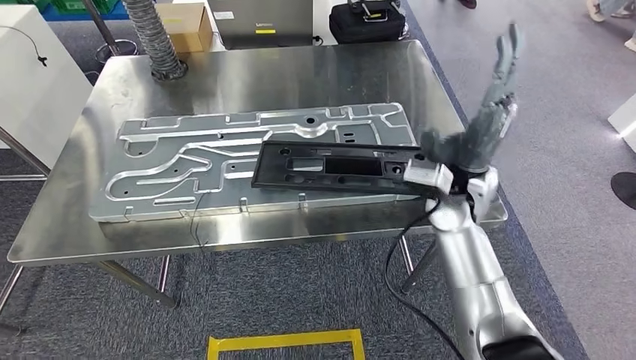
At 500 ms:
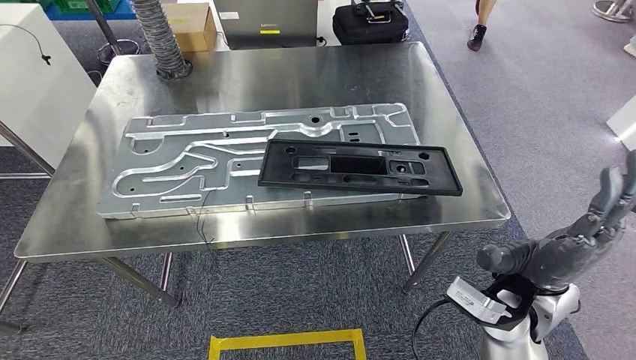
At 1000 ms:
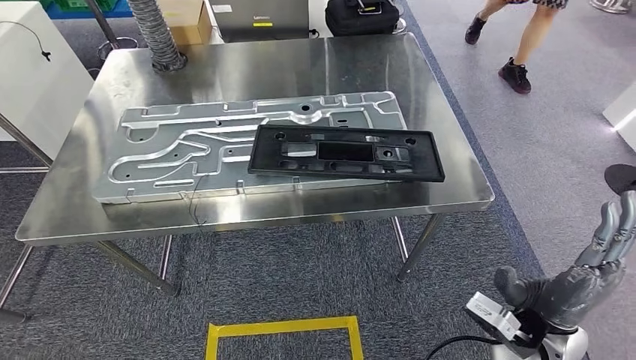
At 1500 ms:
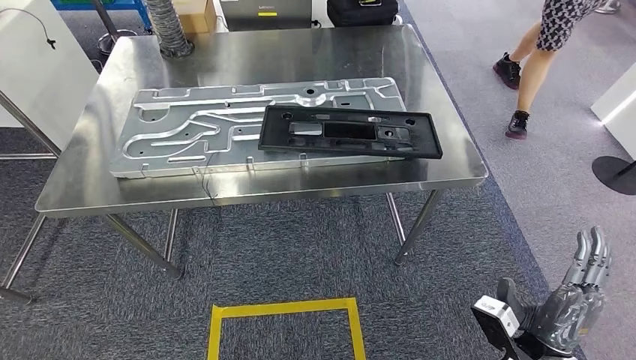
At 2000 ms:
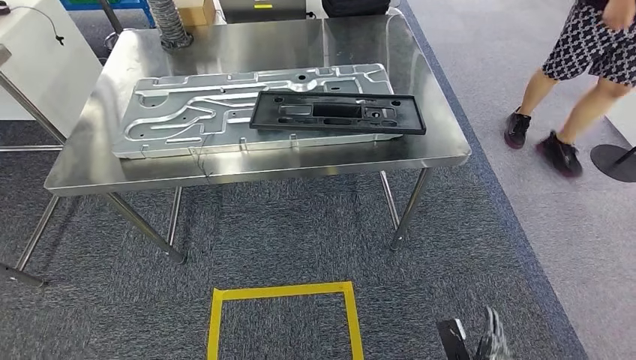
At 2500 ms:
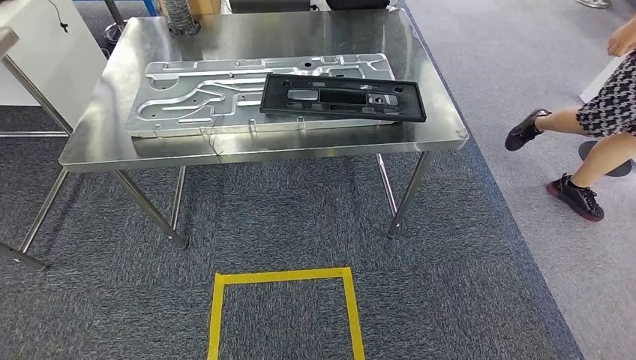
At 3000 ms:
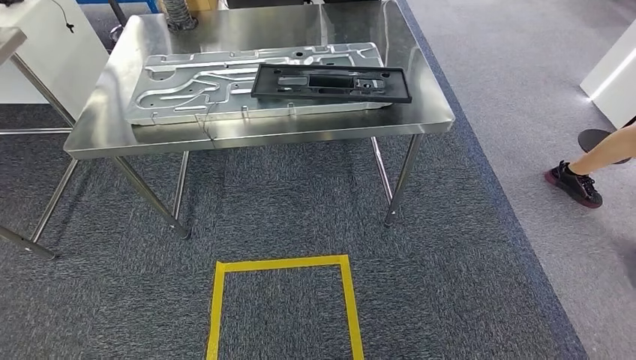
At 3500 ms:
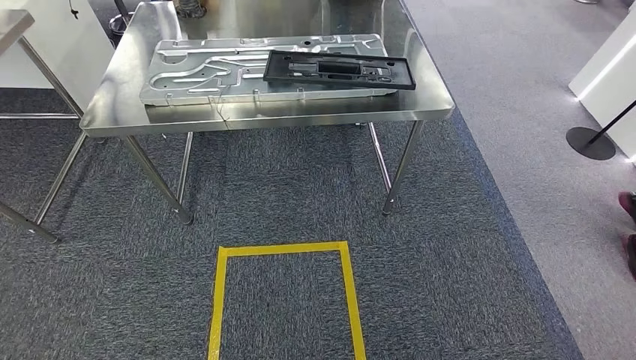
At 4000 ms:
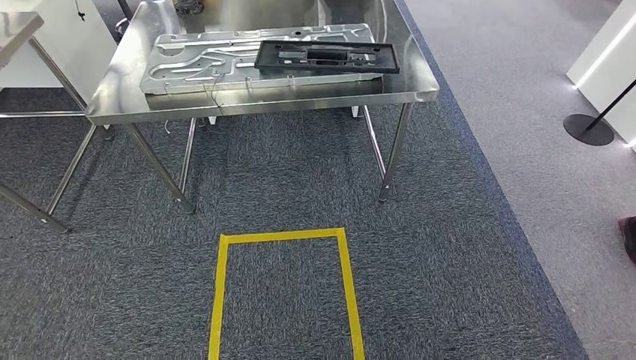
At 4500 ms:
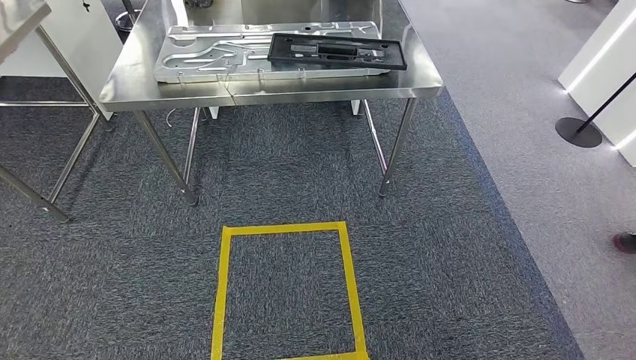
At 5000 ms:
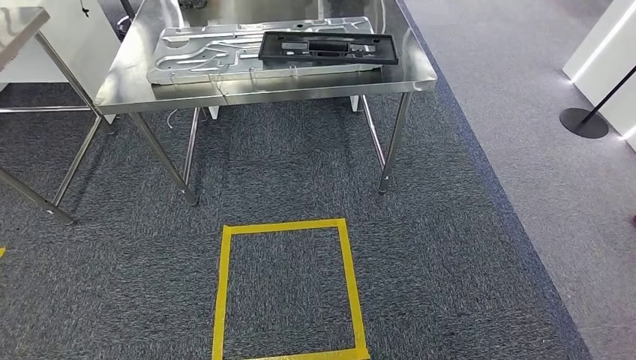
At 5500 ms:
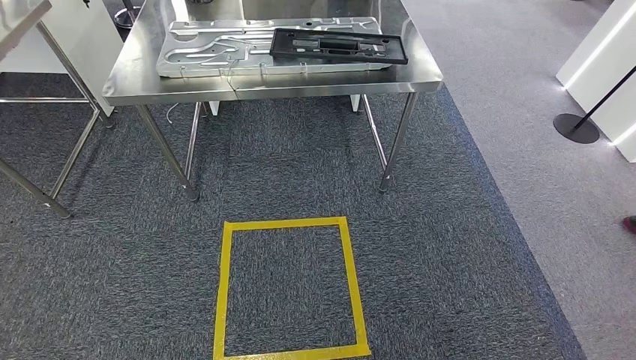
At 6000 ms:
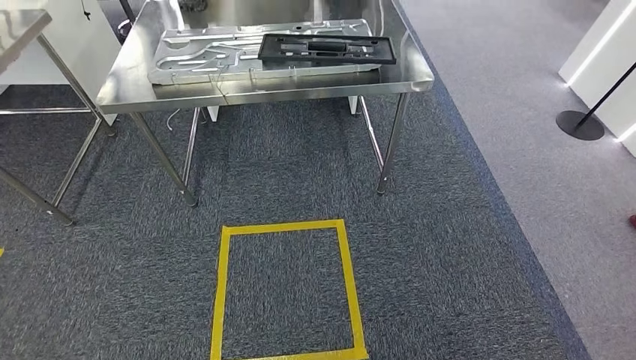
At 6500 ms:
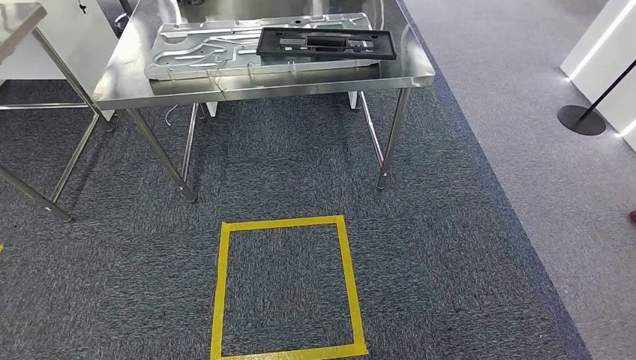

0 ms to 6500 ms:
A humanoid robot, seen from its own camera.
Step, 2000 ms to 6500 ms: Move to the initial position of the shelf.
4500 ms to 6500 ms: The hands move only a little.

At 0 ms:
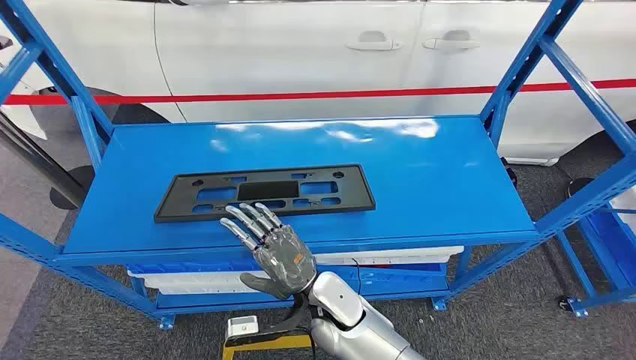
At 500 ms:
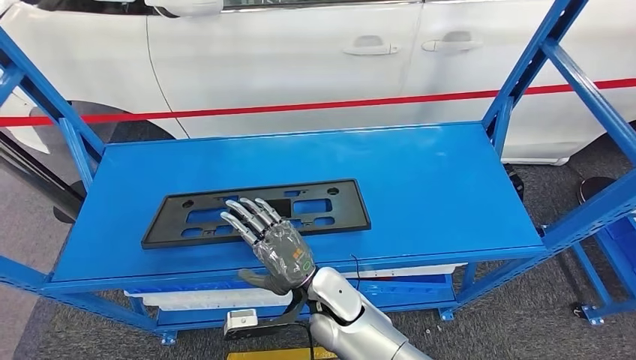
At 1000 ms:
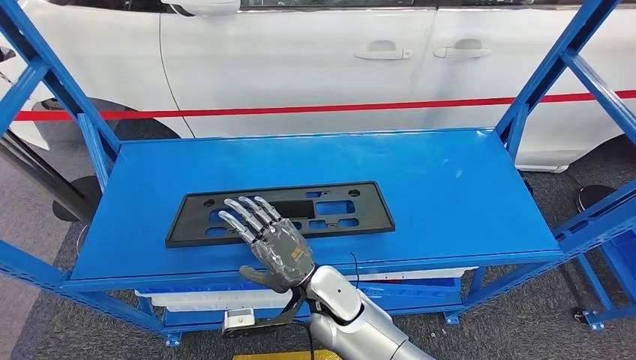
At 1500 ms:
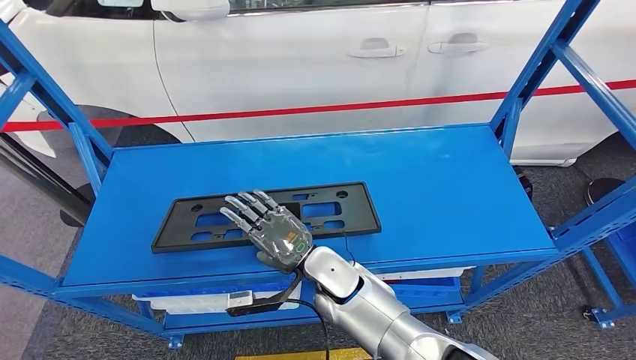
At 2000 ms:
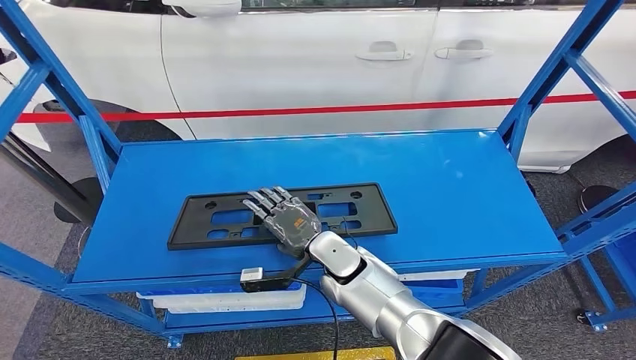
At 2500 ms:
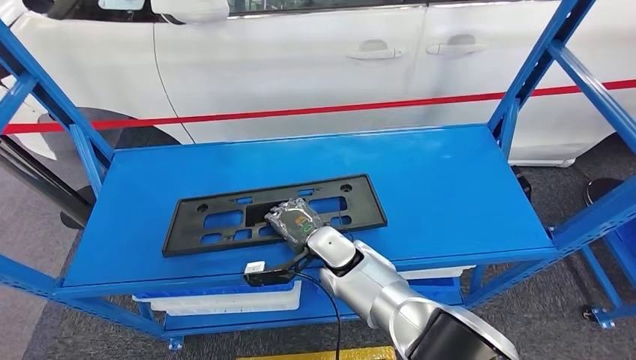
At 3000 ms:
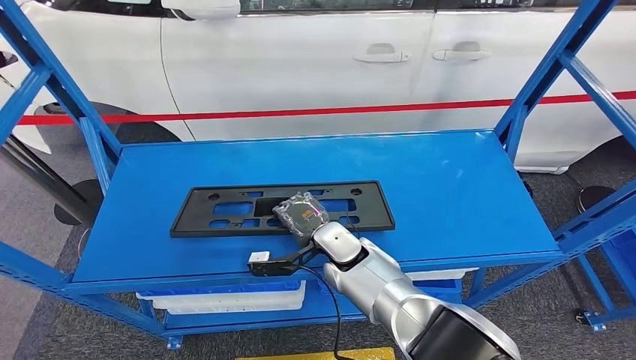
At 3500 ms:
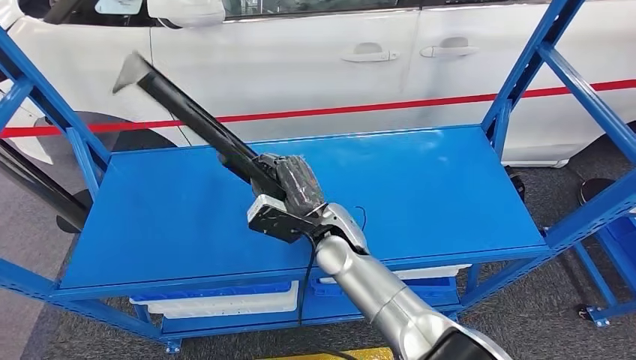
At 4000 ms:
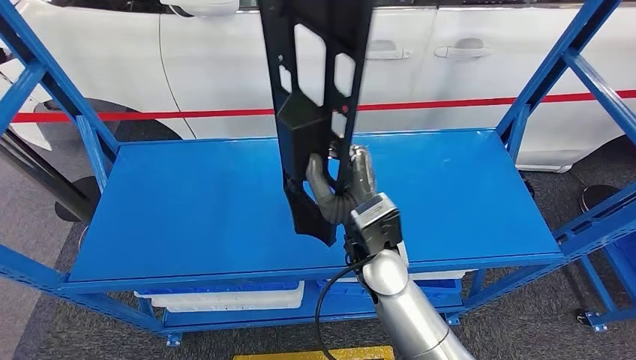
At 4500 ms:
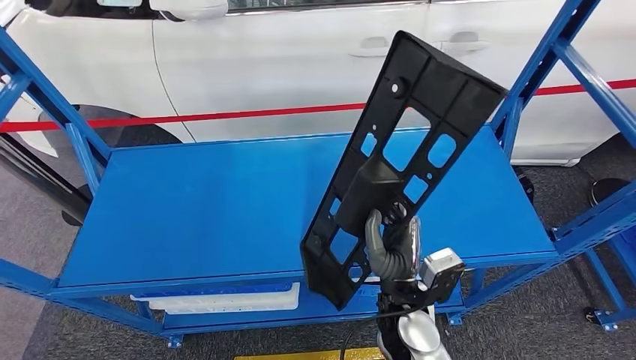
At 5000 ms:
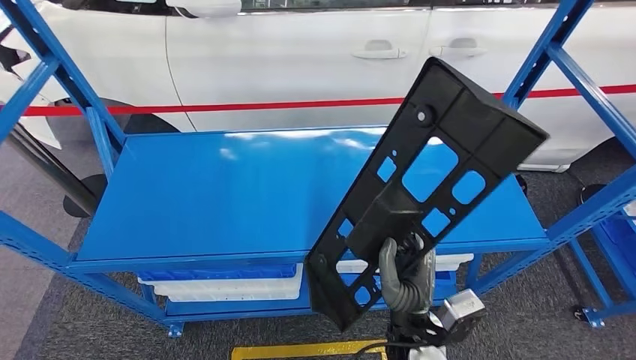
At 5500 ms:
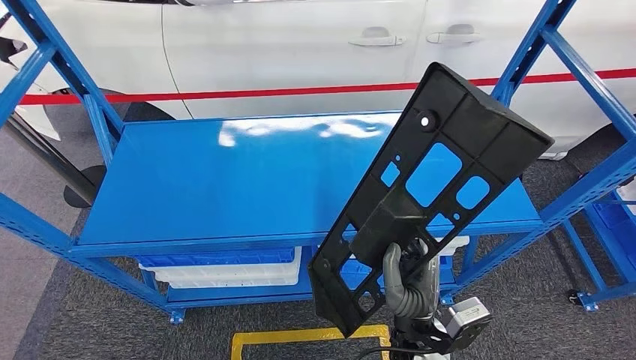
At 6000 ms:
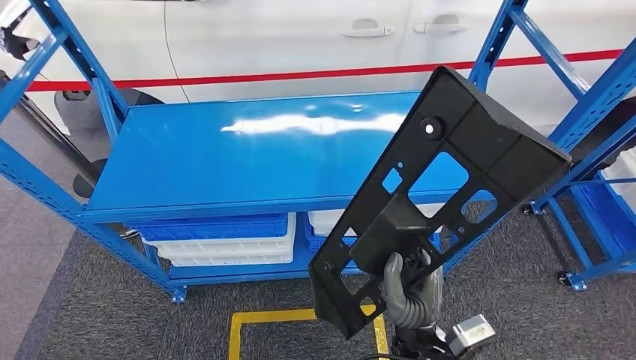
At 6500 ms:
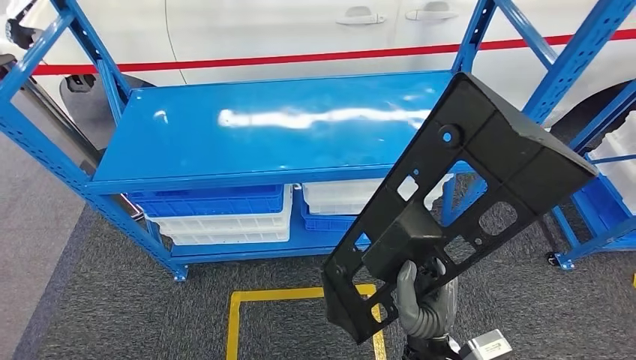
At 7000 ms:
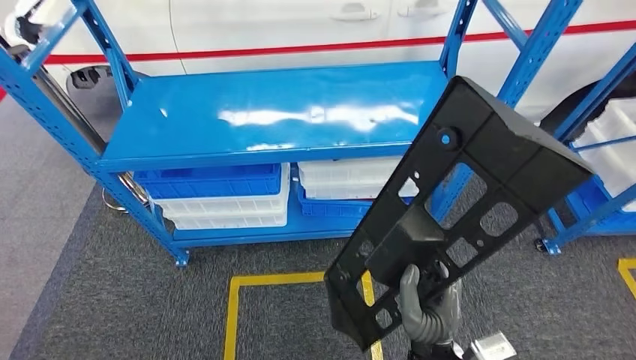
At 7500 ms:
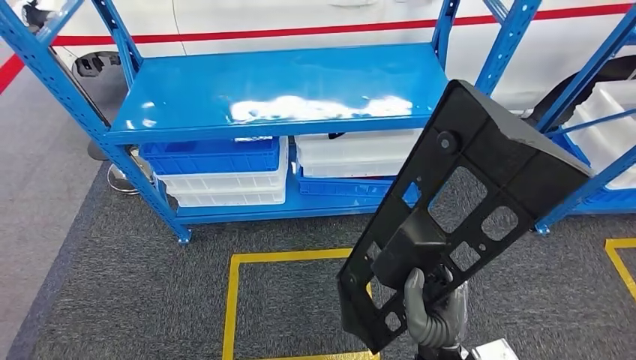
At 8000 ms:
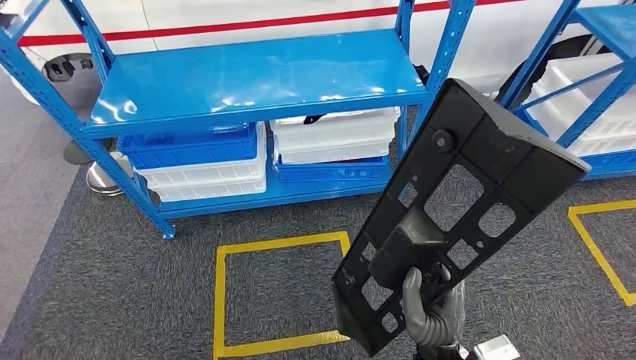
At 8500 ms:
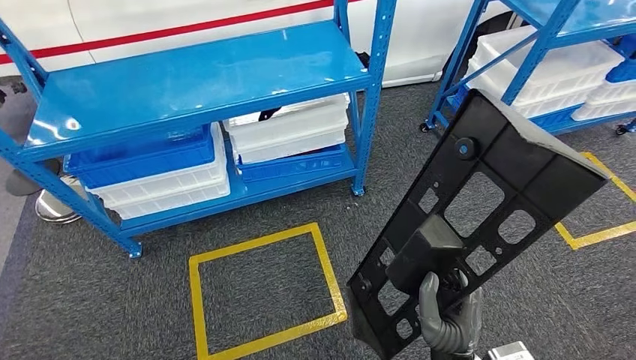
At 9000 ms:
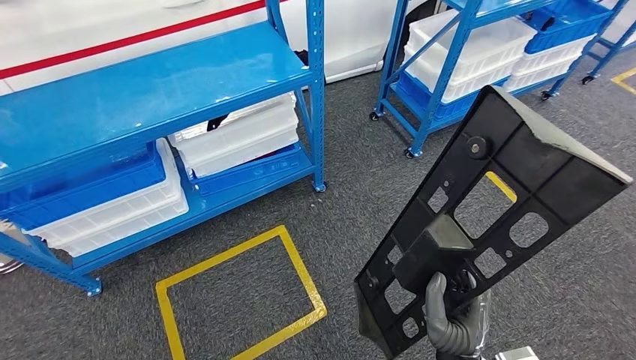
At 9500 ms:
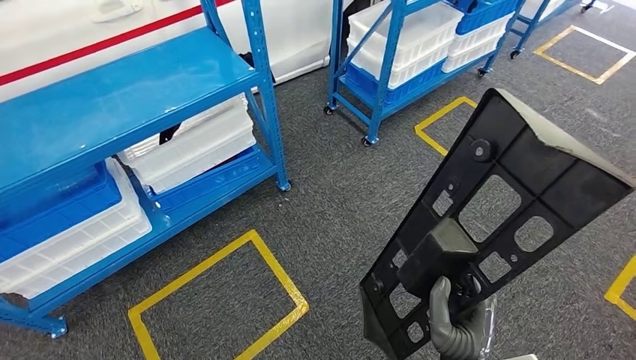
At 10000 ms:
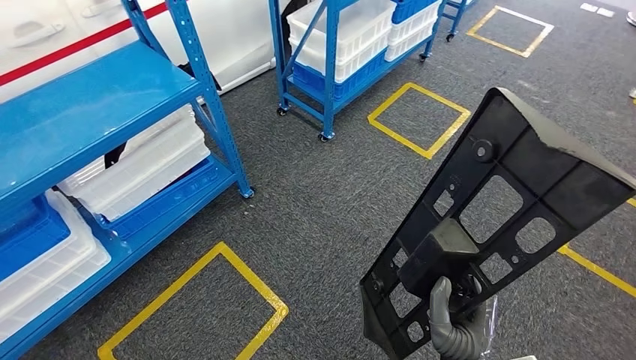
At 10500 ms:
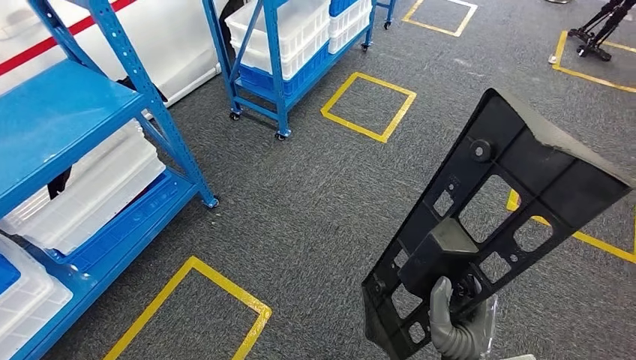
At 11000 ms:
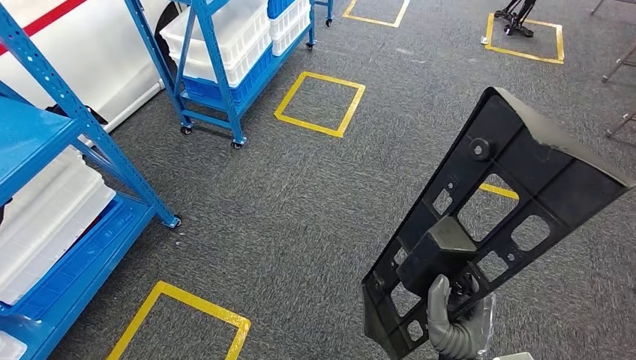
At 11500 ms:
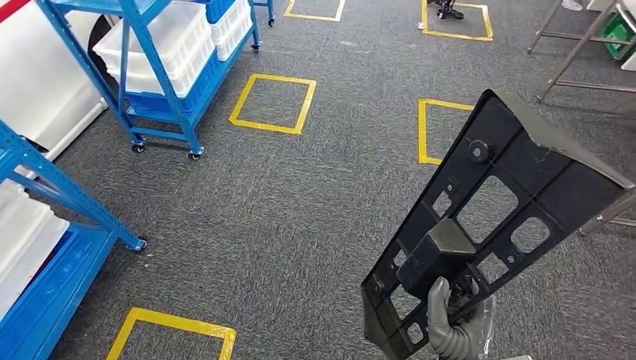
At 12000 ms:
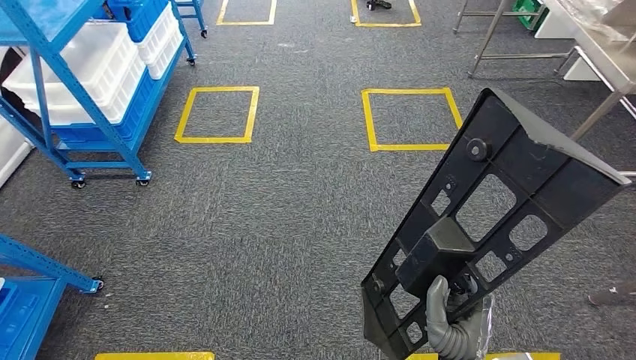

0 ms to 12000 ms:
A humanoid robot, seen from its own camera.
Step, 0 ms to 7500 ms: Pick up the large material from the shelf.

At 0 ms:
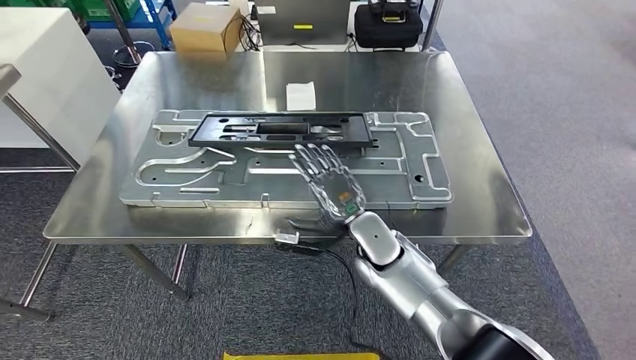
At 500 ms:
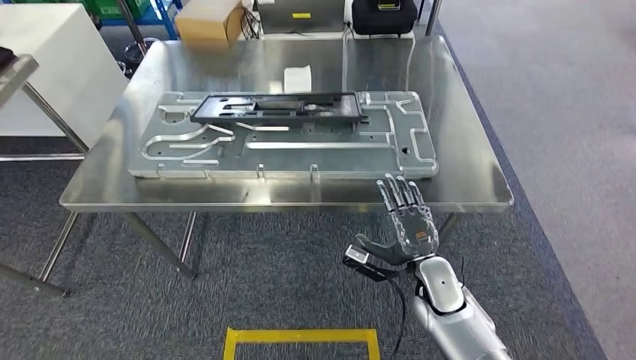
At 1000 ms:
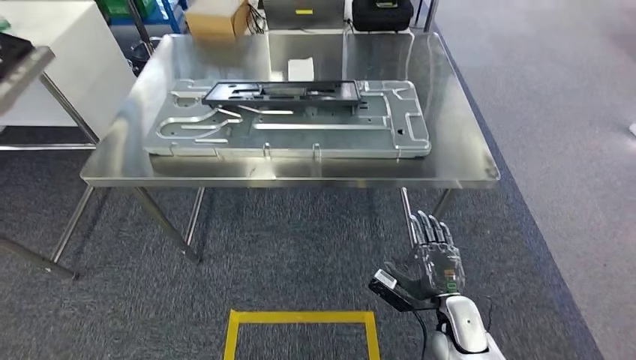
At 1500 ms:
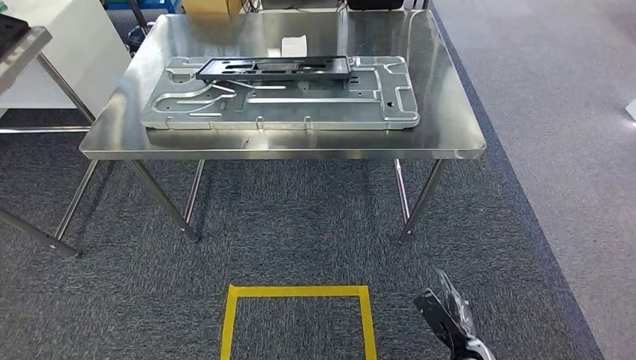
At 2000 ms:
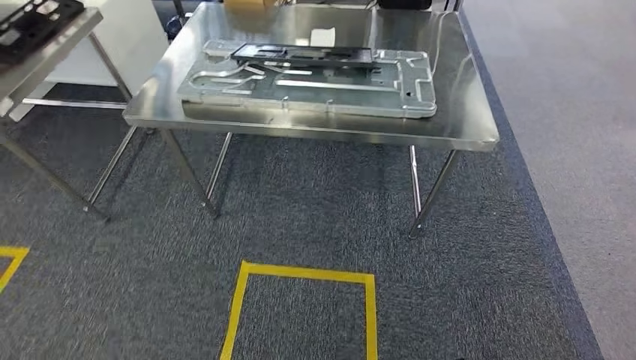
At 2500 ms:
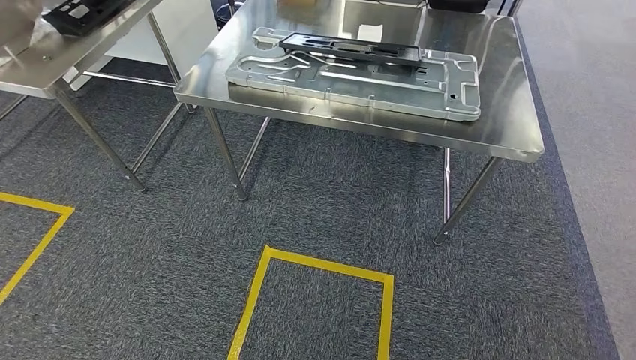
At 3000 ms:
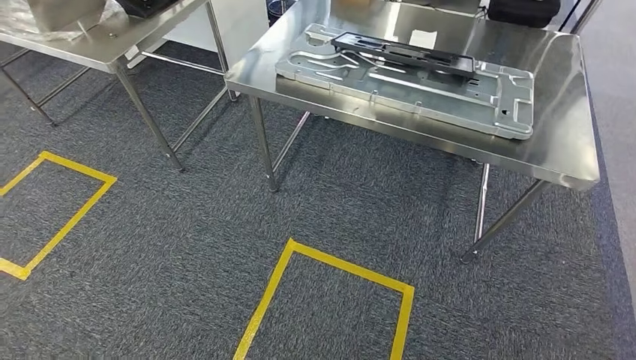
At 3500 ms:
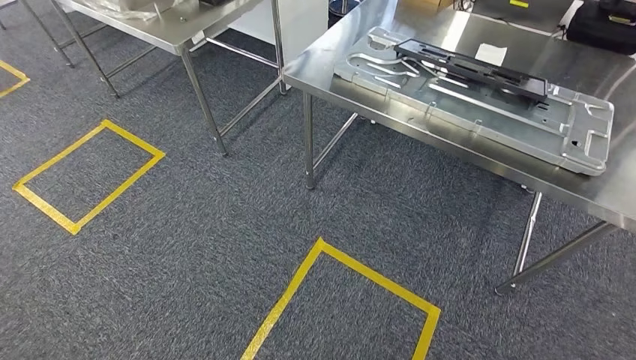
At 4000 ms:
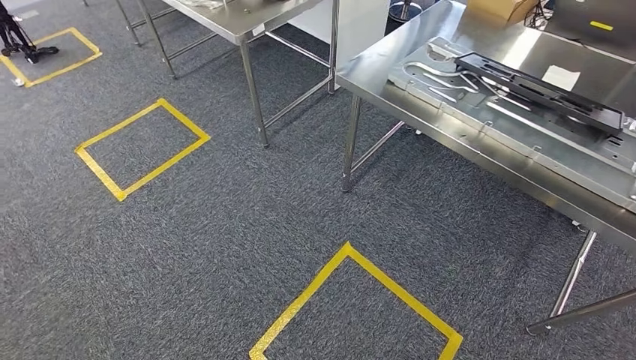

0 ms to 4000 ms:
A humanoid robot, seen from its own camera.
Step, 0 ms to 2000 ms: Insert the large material into the corresponding slot on the workbench.
